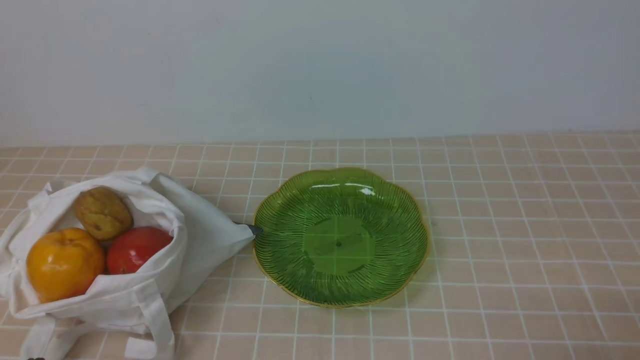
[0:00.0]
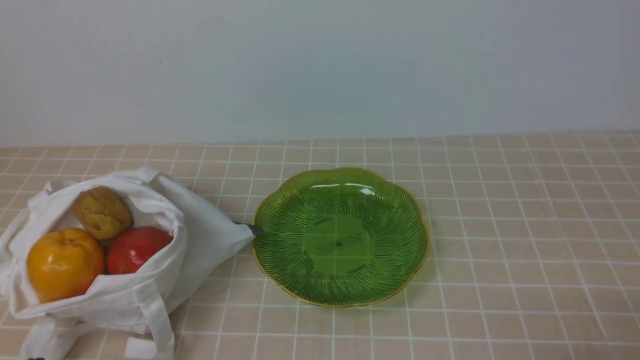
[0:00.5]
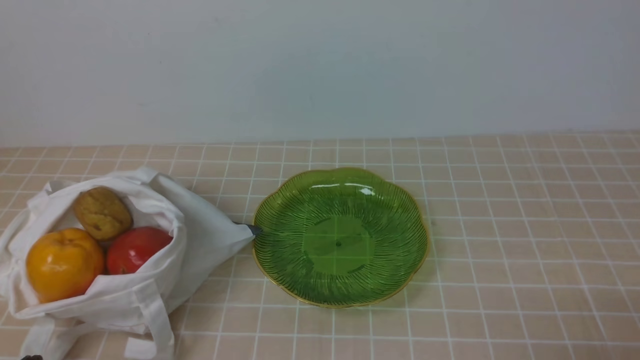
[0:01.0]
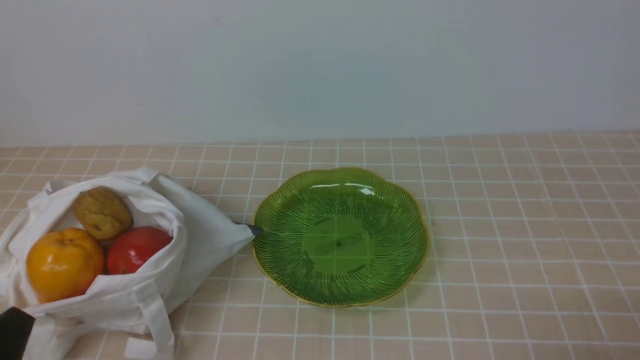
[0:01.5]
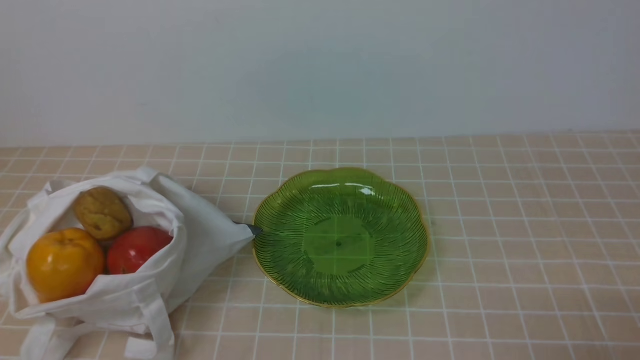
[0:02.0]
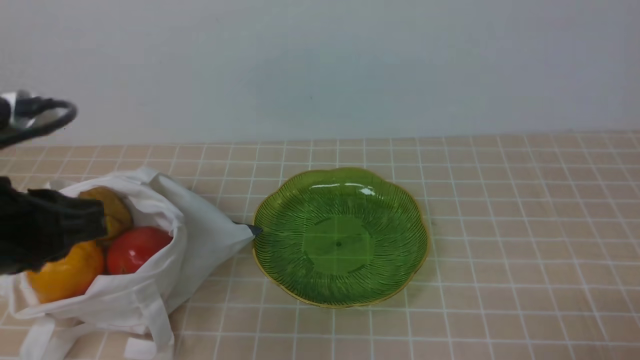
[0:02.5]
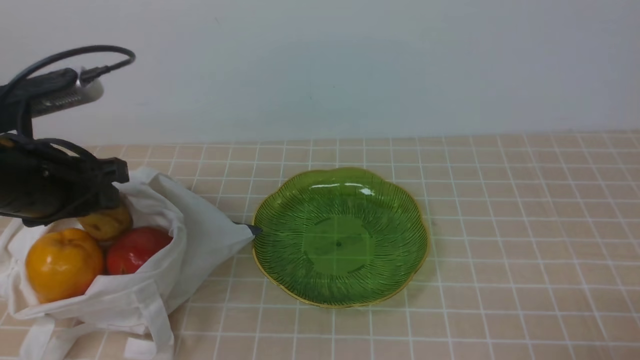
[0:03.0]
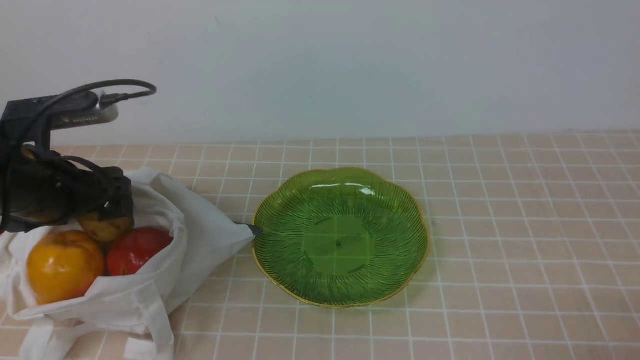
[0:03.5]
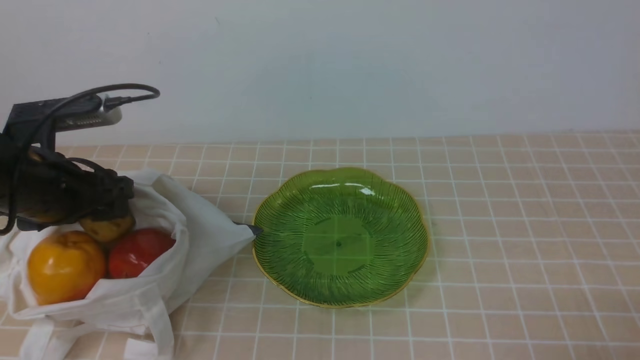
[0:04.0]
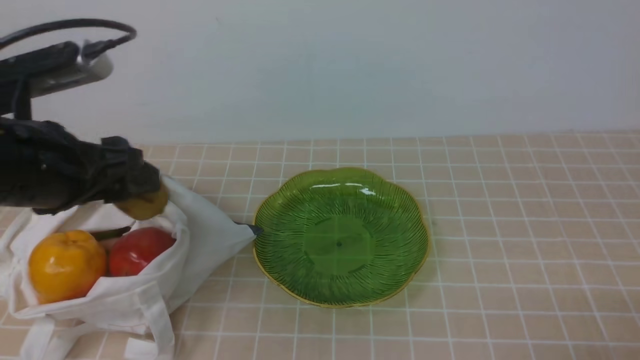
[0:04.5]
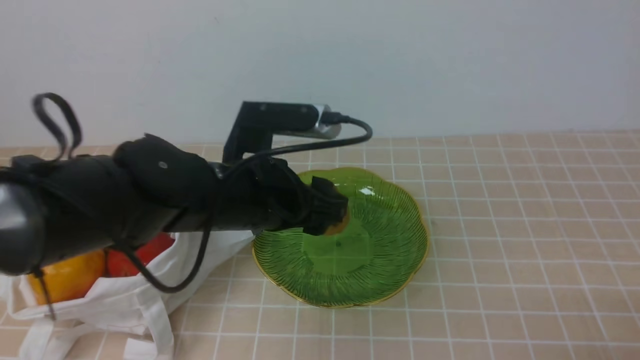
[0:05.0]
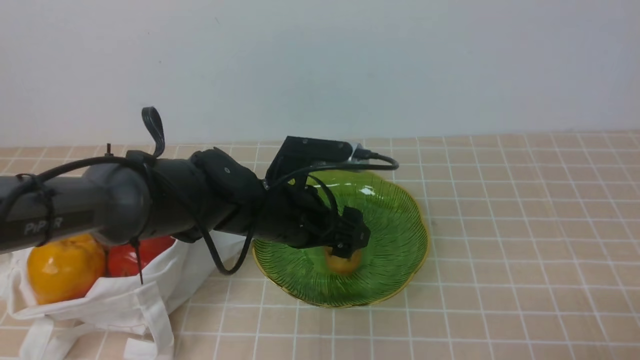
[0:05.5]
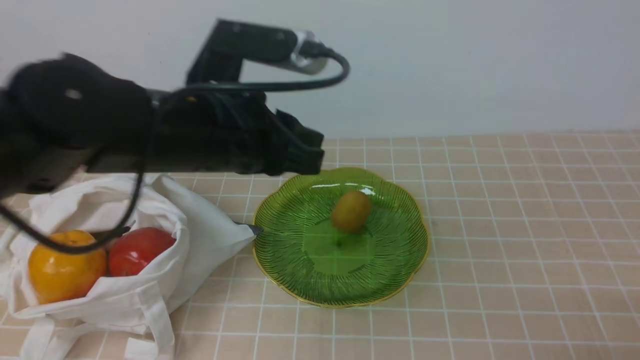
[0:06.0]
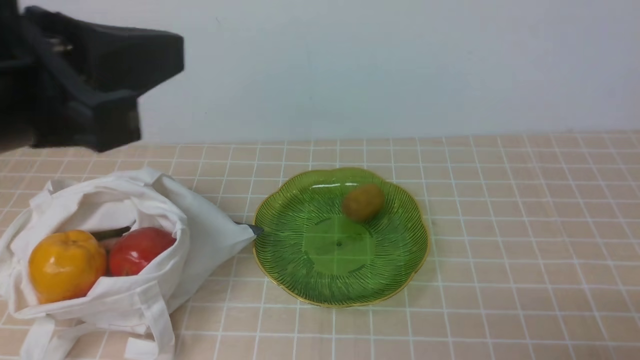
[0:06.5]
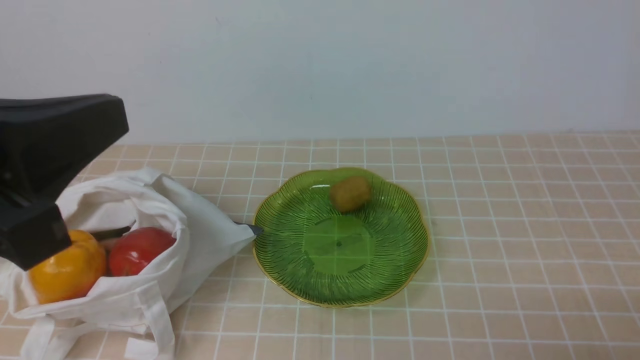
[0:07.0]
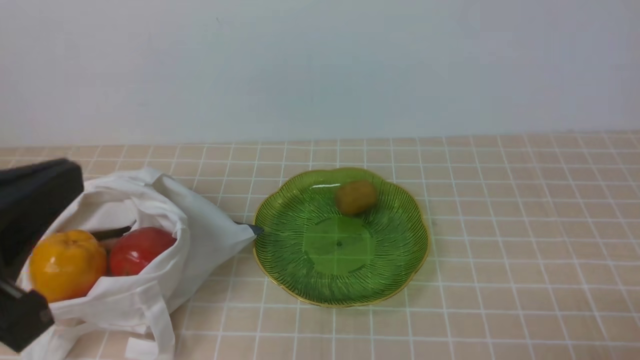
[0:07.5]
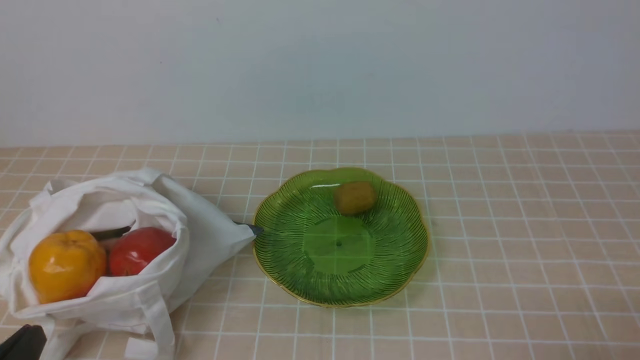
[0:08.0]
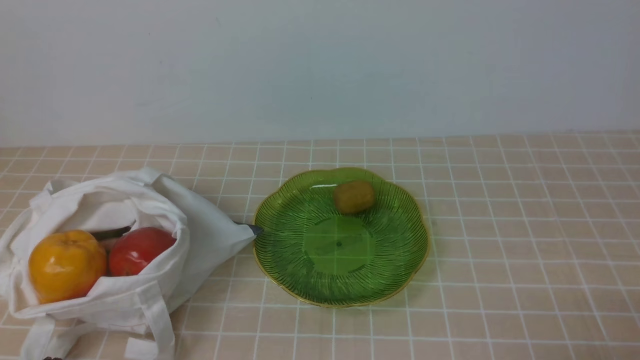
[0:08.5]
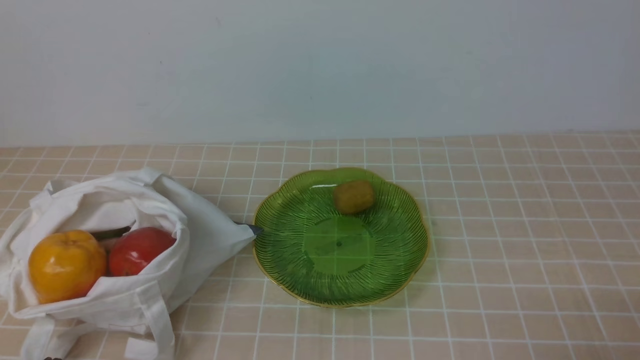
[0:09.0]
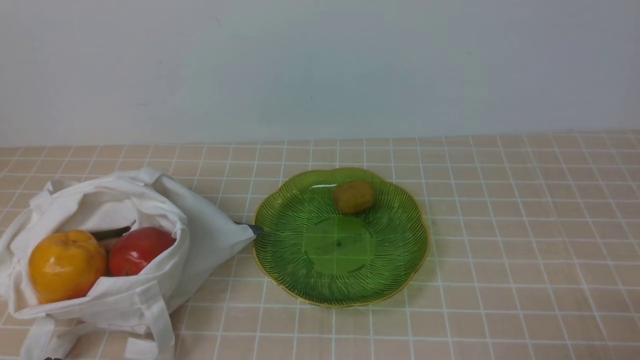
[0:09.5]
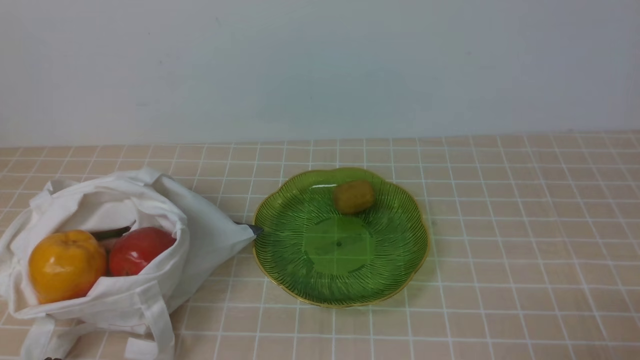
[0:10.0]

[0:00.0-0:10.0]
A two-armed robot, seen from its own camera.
Step, 0:00.0 to 0:04.0: use the left arm to grab a kiwi from the bag.
Step, 0:04.5 to 0:05.5: use the left arm to put the kiwi into the empty plate on the right.
0:02.0 to 0:04.0: The left gripper is displaced forward by some 25 cm, and opens.
0:04.0 to 0:06.0: The left gripper travels to the right by approximately 20 cm, and closes its fingers.
0:06.0 to 0:08.0: The left gripper shifts about 30 cm backward and to the left, and closes its fingers.
